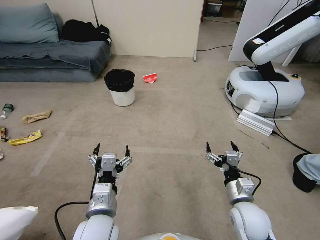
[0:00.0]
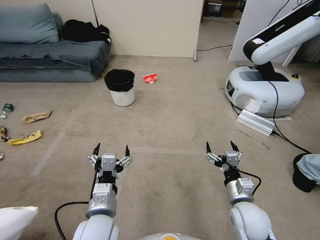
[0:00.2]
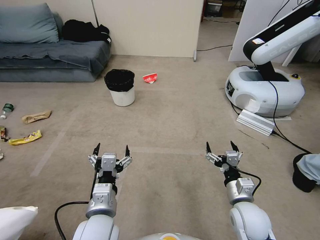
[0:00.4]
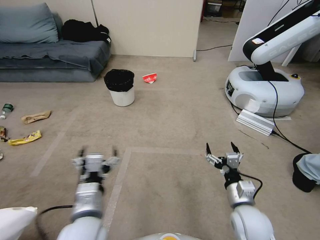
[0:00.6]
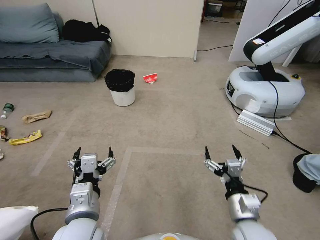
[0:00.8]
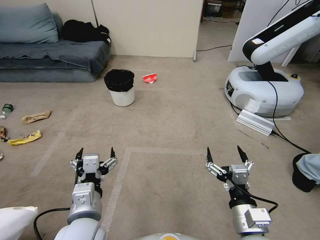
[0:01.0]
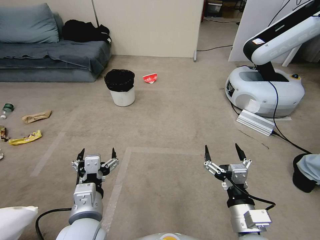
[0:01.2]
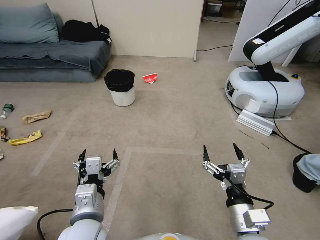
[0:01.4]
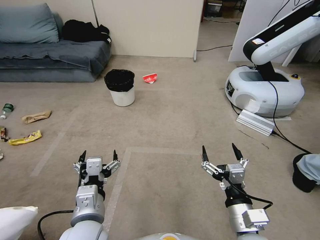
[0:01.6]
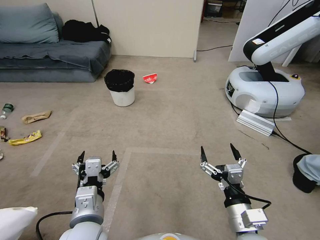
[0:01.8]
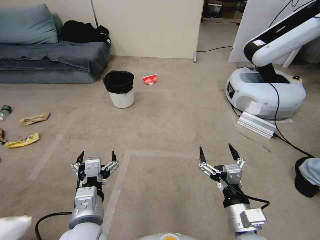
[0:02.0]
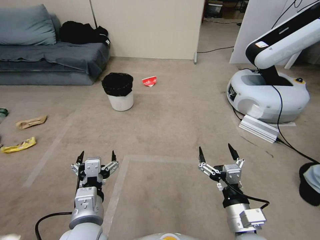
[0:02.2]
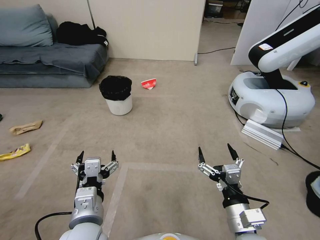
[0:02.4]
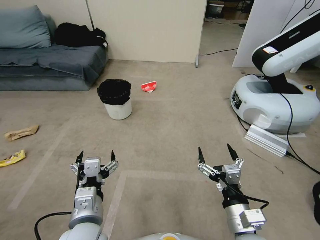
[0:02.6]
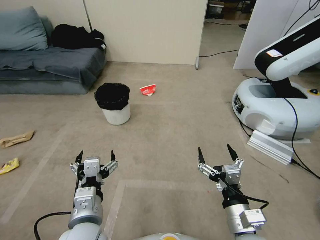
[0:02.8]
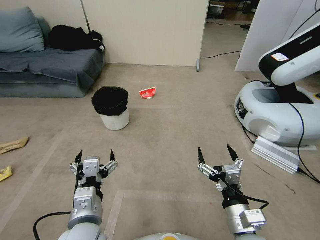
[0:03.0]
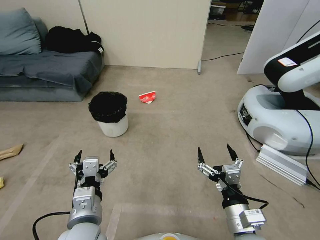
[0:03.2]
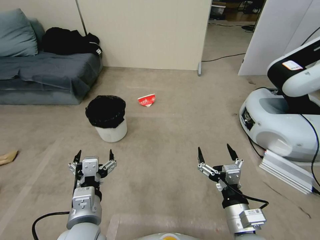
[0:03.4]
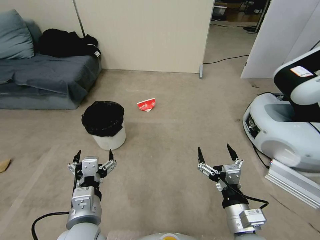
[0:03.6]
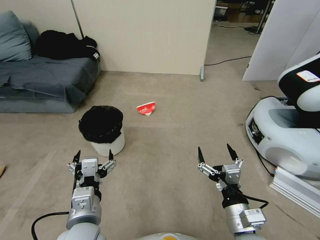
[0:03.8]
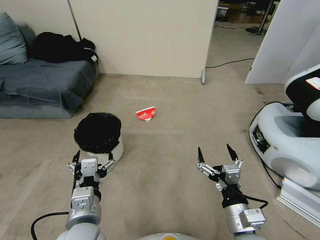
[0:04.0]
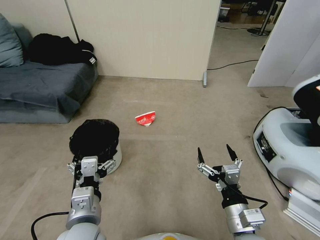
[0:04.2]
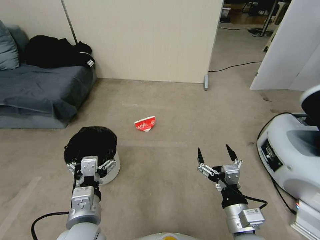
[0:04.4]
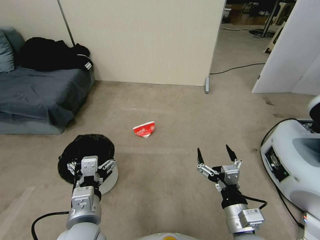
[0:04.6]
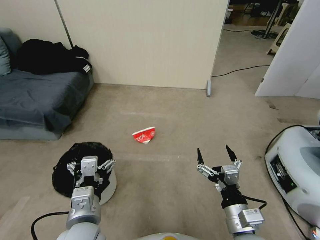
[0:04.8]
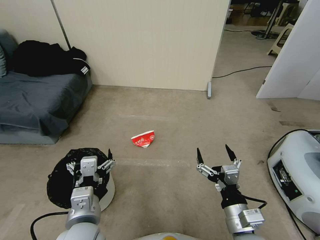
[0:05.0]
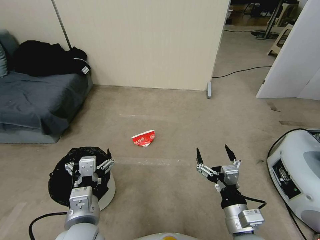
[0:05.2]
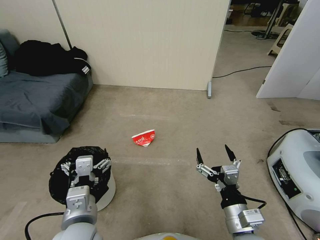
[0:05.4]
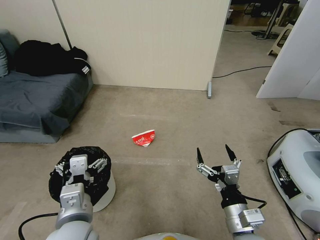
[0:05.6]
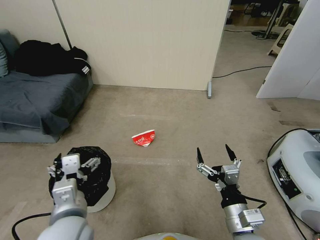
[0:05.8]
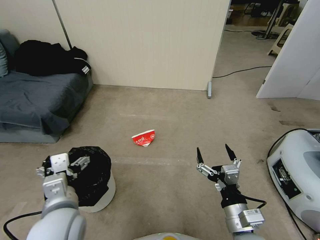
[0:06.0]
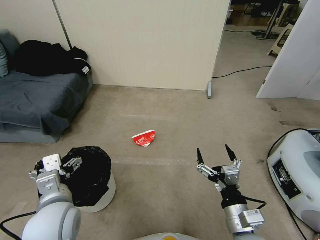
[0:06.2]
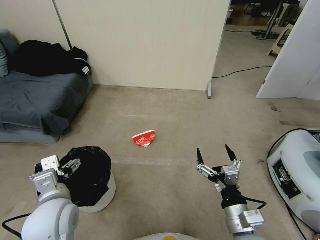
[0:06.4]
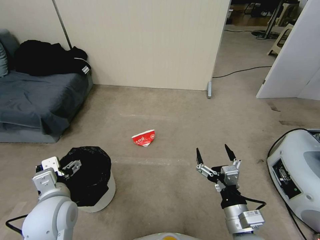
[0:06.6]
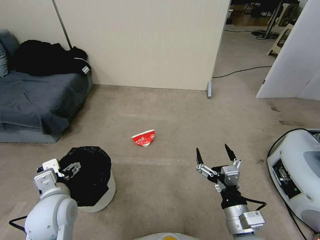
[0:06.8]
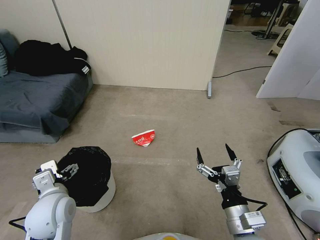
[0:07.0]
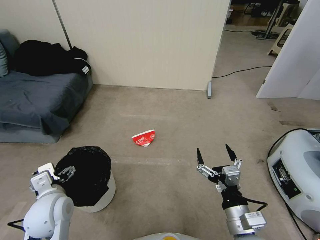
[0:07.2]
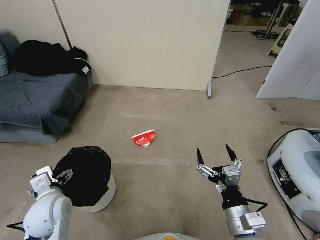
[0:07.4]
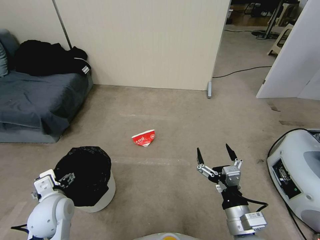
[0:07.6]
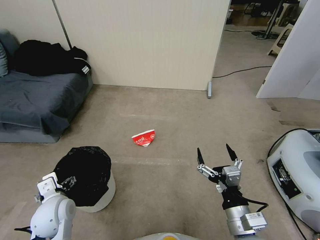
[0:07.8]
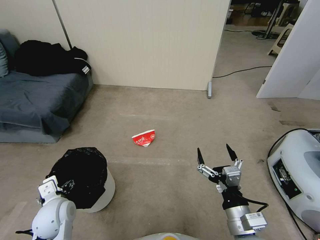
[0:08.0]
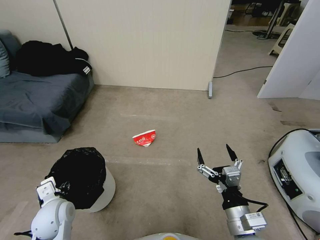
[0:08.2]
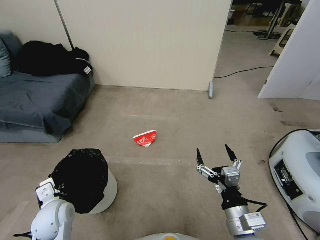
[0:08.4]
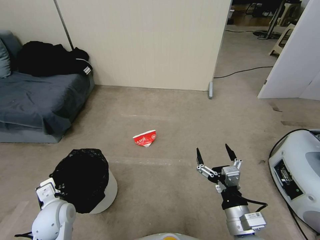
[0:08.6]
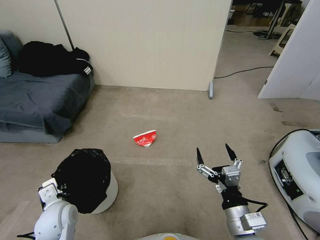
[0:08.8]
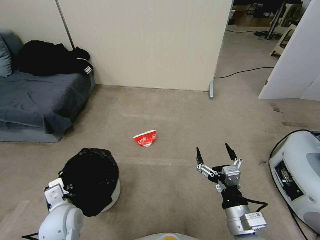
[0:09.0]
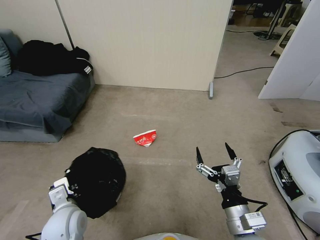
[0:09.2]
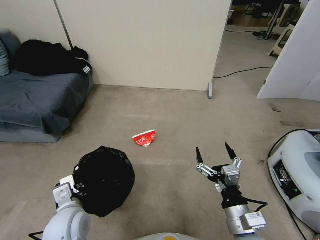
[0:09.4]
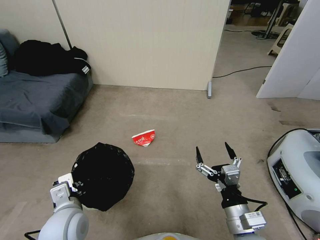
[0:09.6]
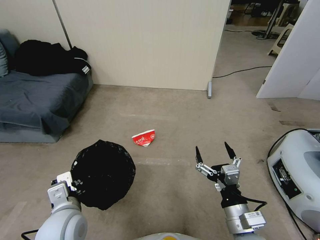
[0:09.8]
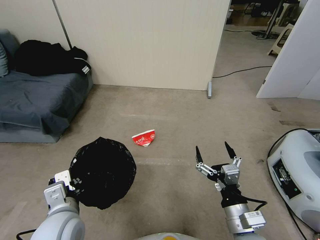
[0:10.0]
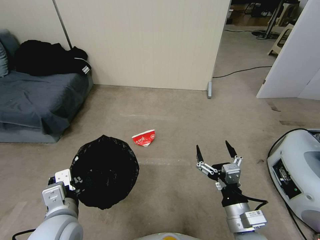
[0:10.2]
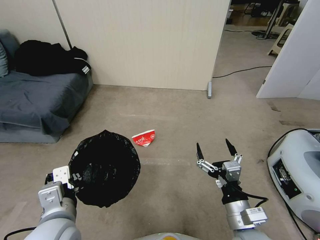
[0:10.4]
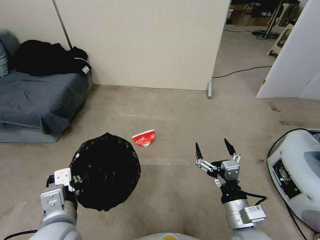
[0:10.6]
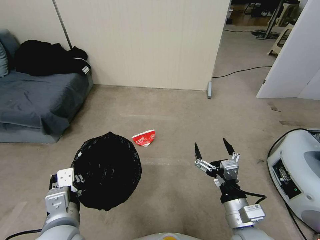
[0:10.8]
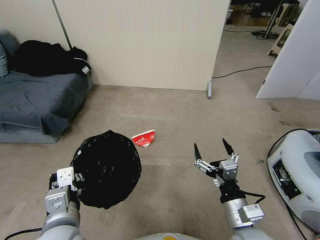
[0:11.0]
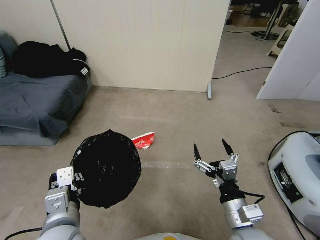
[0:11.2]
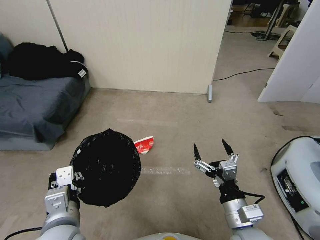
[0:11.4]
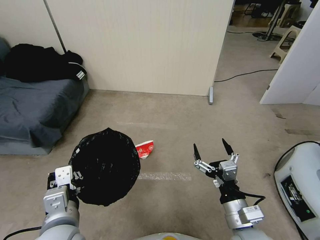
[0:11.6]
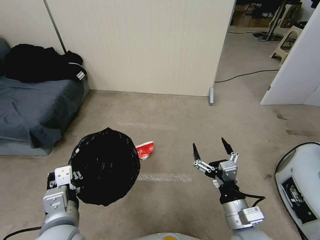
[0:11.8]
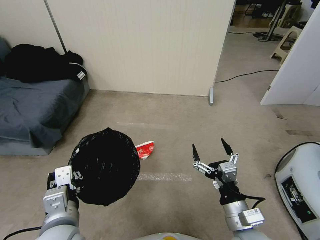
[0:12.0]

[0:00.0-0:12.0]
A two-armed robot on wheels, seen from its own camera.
Task of the whole recording: Pick up the trash bin, then pick up the garbage from the floor and place it into the trash bin.
0:04.4 to 0:06.0: The left gripper ends up approximately 5 cm from where it was.
0:06.0 to 0:07.6: The left gripper shifts some 15 cm to the left, downward and forward.
0:07.6 to 0:09.0: The left gripper closes up.
0:09.0 to 0:10.4: The left gripper moves upward, to the right and backward, some 15 cm.
0:10.4 to 0:12.0: The grippers stay close to where they were, moving slightly.

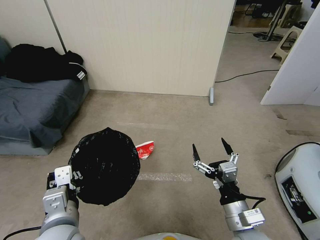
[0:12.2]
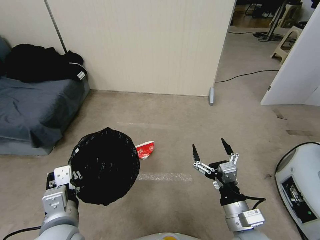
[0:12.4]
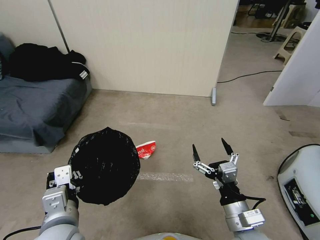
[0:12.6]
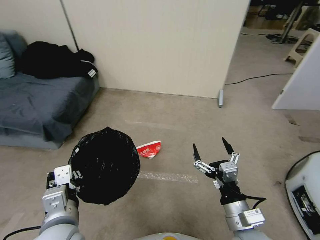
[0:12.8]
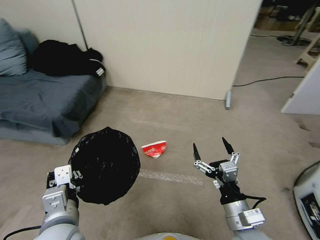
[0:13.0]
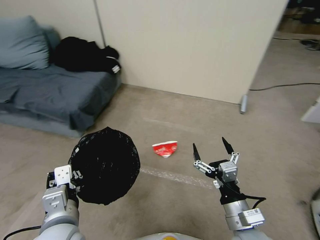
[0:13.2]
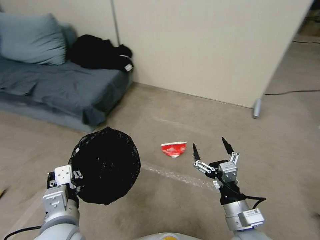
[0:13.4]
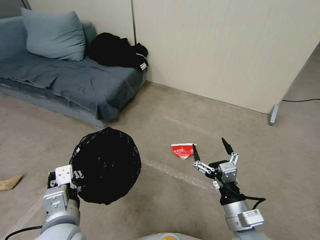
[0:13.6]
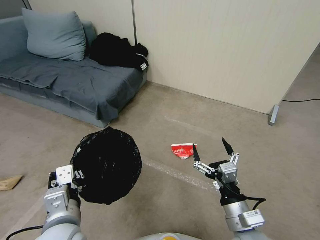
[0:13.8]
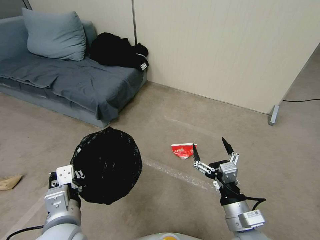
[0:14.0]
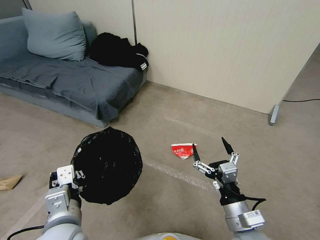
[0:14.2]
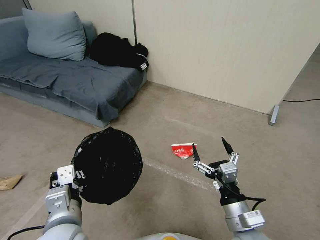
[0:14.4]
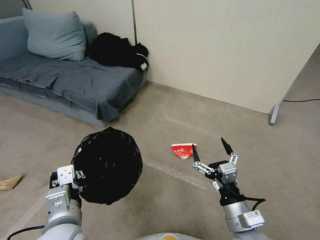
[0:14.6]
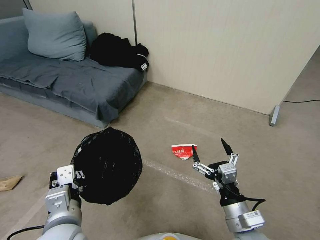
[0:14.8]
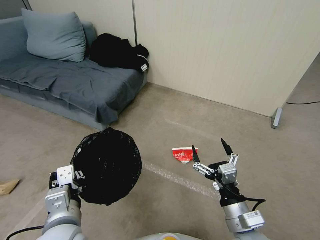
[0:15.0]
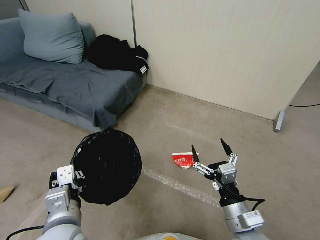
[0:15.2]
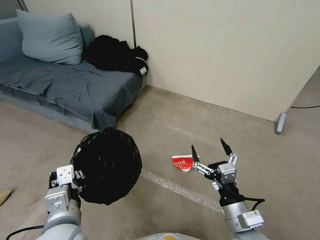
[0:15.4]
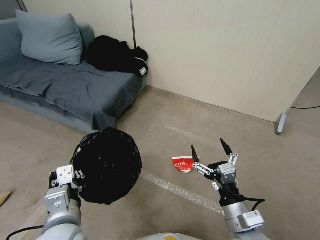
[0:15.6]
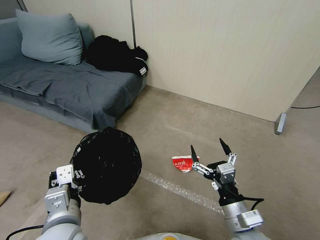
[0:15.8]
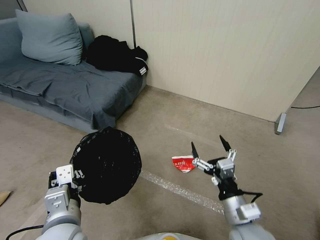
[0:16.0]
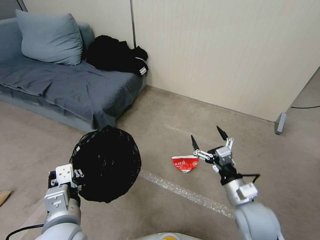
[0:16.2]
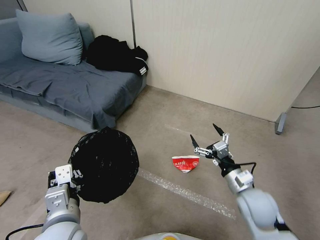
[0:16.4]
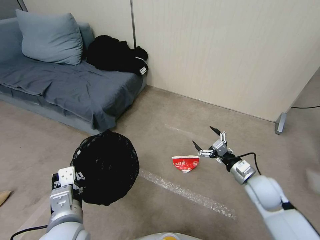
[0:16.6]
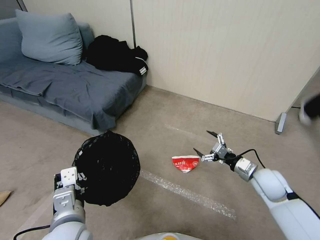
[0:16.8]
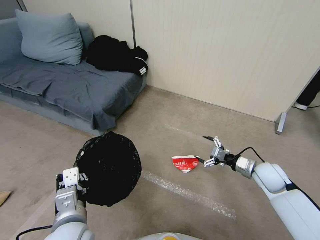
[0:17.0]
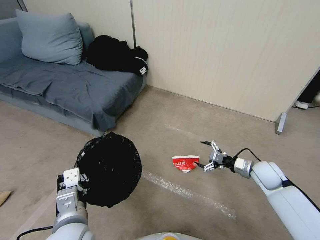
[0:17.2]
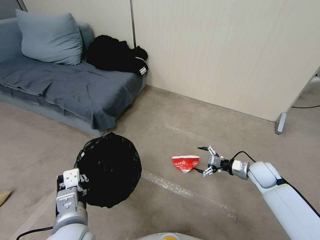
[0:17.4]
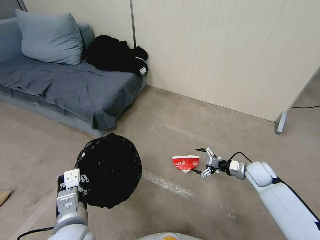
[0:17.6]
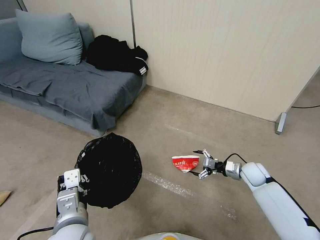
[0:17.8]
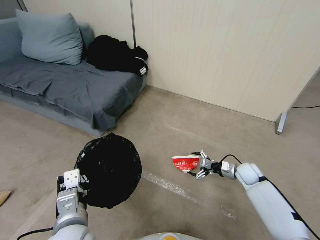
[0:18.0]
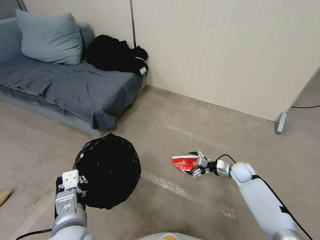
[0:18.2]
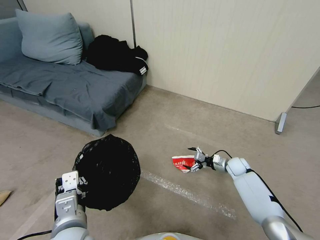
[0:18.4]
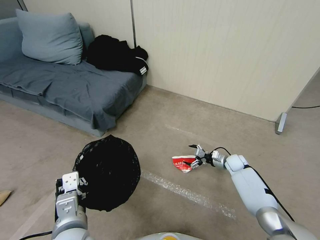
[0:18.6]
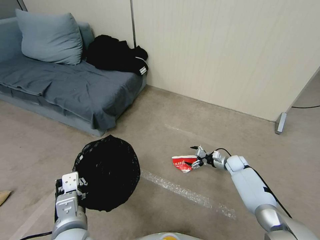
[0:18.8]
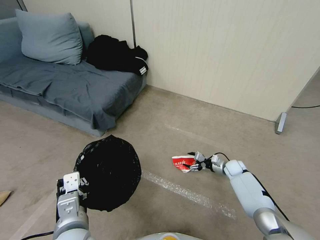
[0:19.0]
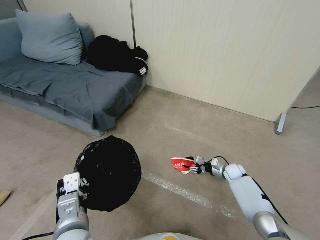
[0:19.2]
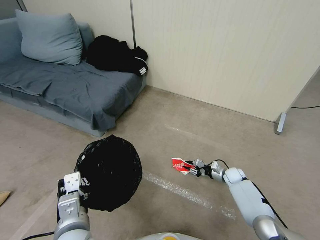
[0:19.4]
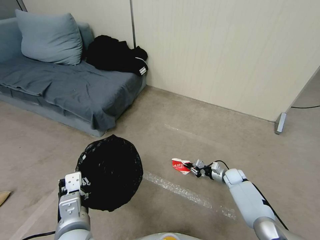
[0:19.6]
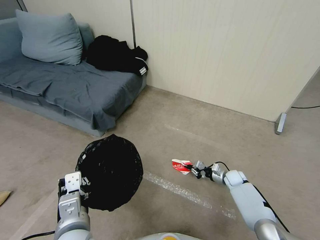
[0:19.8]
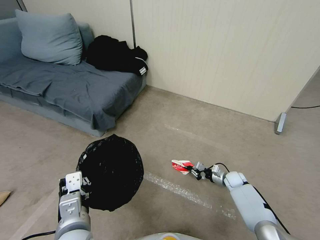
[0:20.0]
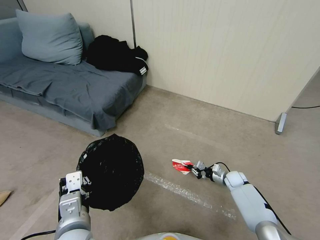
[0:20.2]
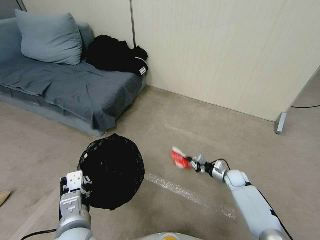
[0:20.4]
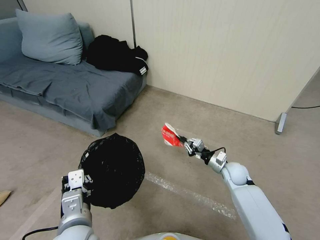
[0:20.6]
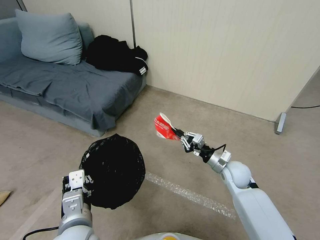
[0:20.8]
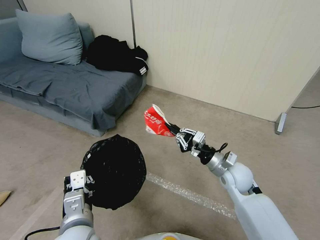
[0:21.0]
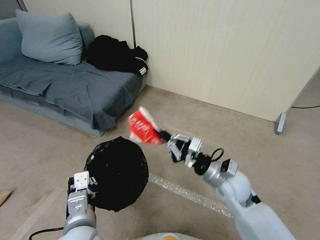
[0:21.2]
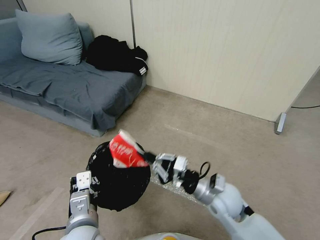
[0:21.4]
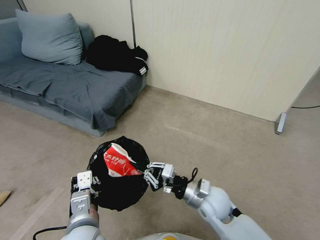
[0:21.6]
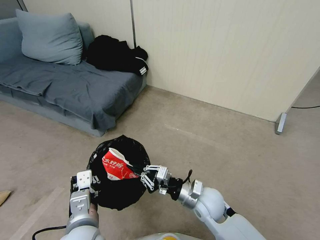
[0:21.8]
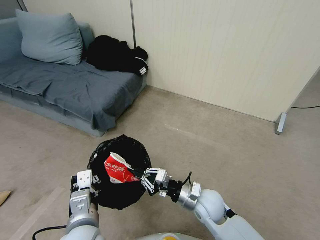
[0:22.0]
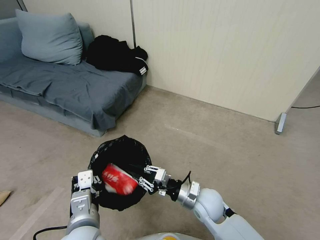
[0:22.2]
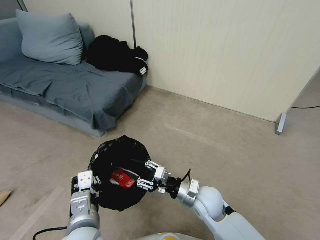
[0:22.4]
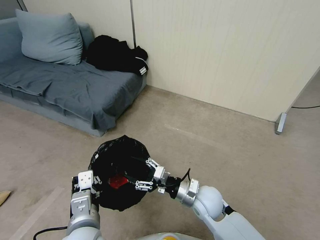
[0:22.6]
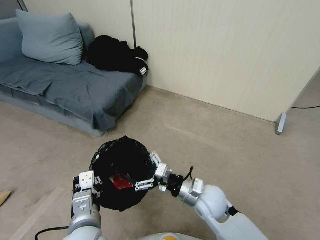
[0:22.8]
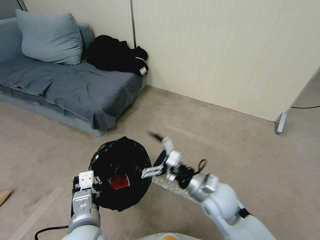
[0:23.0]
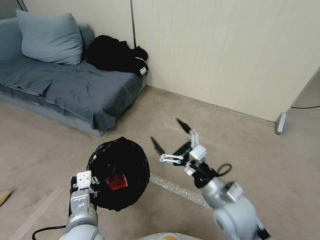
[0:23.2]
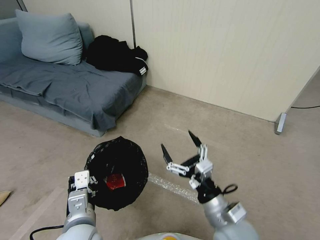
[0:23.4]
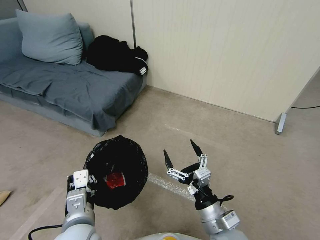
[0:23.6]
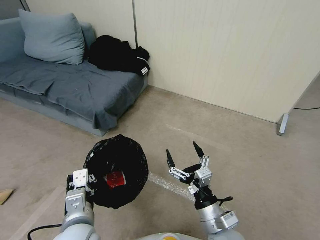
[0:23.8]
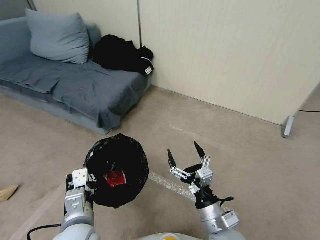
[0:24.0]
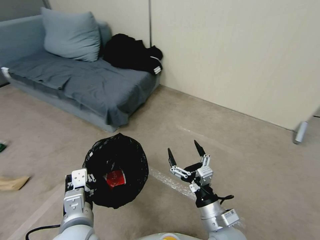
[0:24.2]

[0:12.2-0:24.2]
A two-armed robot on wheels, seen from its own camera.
Task of the whole recording: Pick up the trash bin, then pick up the garbage from the floor and place it into the trash bin.
0:13.8 to 0:15.2: Both grippers stay put.
0:15.2 to 0:16.6: The right gripper moves forward and to the right, some 20 cm.
0:16.6 to 0:18.2: The right gripper goes about 20 cm downward and forward.
0:18.2 to 0:19.8: The right gripper heads downward, covering some 5 cm, and closes its fingers.
0:19.8 to 0:21.2: The right gripper goes some 30 cm upward, to the left and backward.
0:21.2 to 0:22.6: The right gripper heads downward and to the left, covering roughly 10 cm, and opens its fingers.
0:22.6 to 0:24.2: The right gripper travels backward by some 10 cm, and opens its fingers.
